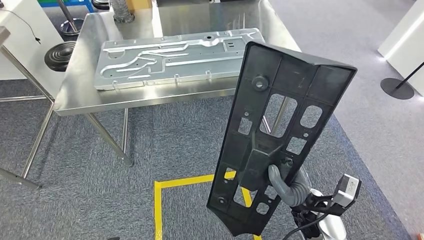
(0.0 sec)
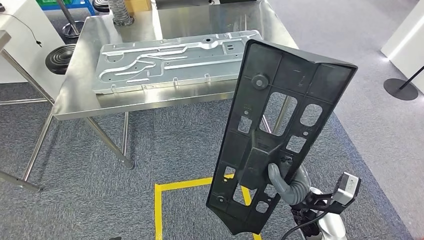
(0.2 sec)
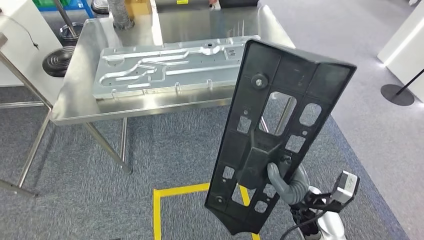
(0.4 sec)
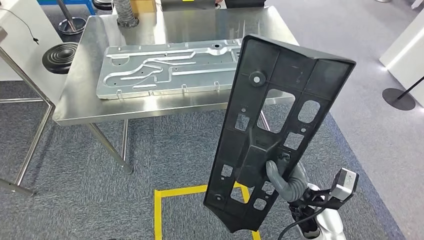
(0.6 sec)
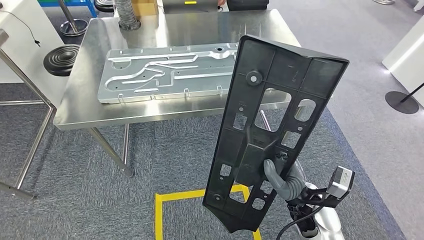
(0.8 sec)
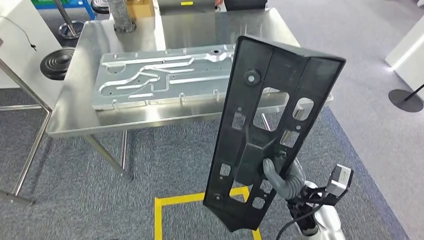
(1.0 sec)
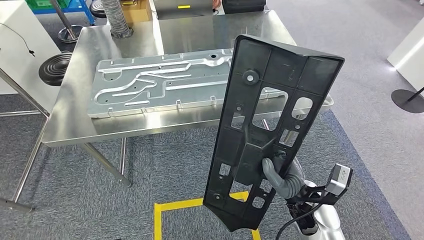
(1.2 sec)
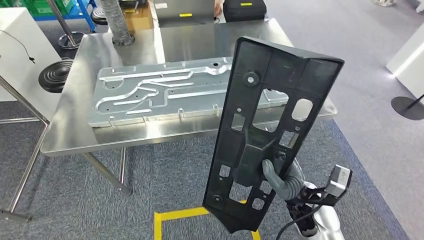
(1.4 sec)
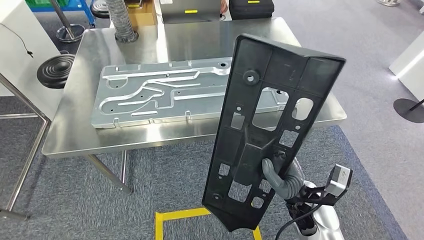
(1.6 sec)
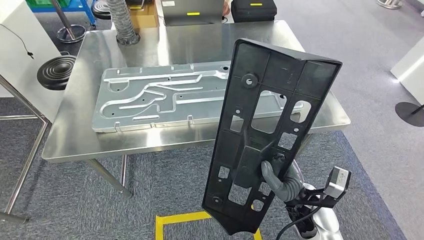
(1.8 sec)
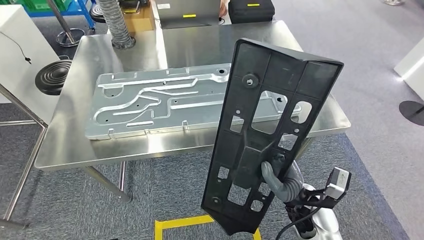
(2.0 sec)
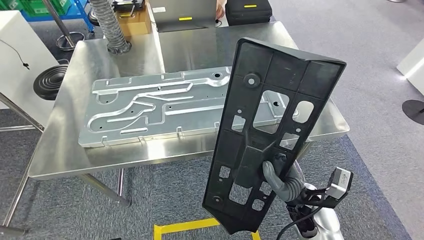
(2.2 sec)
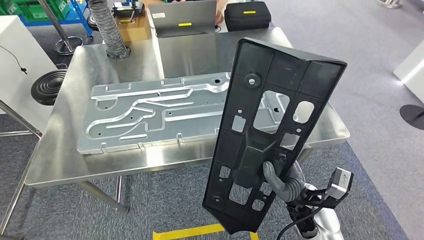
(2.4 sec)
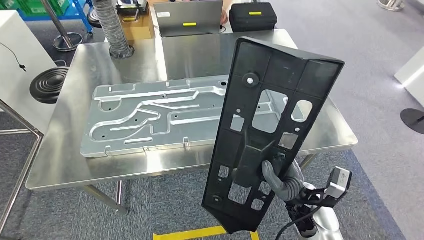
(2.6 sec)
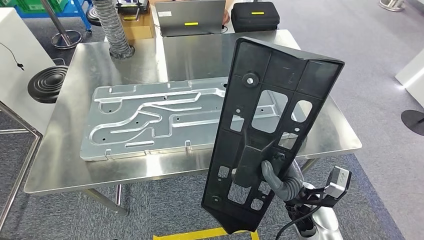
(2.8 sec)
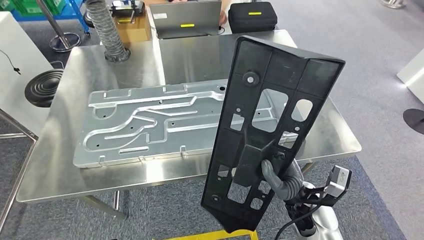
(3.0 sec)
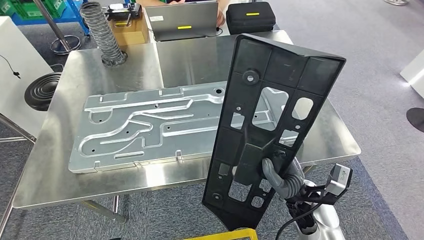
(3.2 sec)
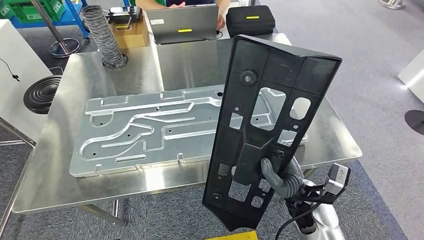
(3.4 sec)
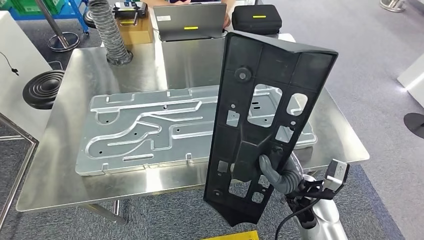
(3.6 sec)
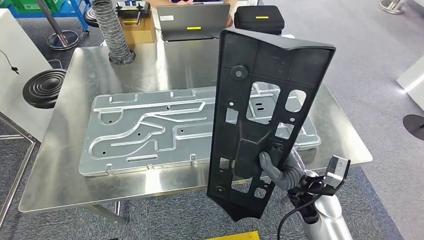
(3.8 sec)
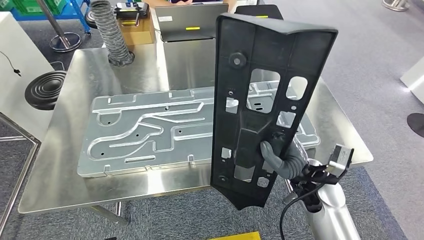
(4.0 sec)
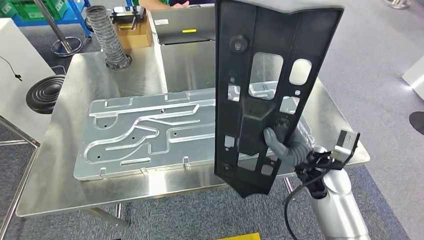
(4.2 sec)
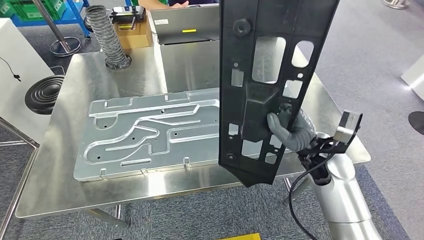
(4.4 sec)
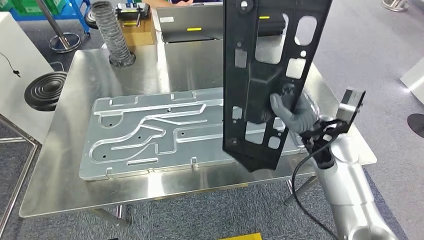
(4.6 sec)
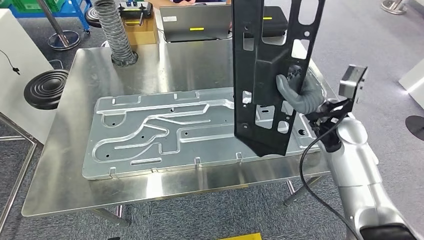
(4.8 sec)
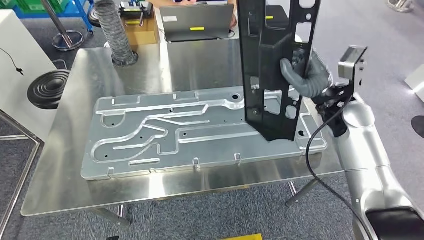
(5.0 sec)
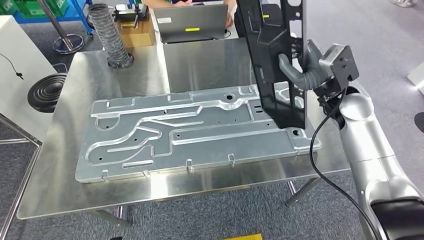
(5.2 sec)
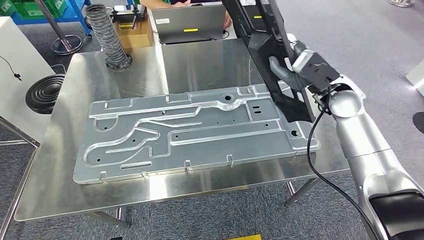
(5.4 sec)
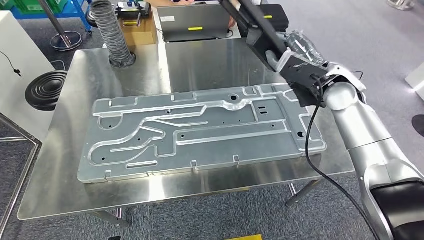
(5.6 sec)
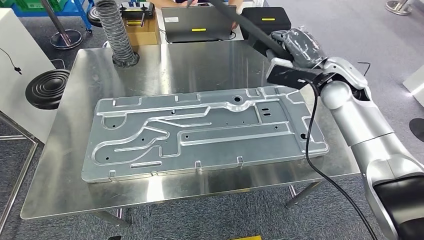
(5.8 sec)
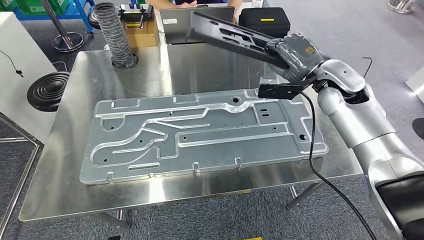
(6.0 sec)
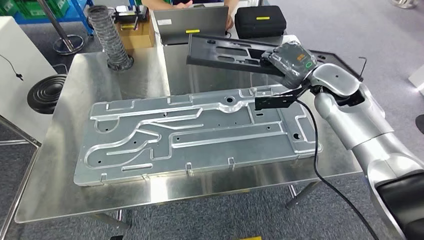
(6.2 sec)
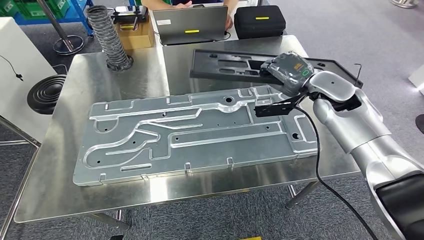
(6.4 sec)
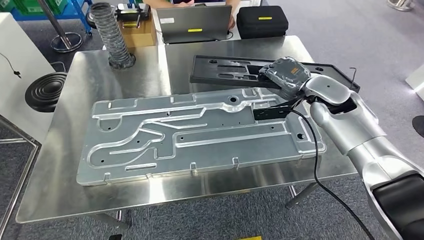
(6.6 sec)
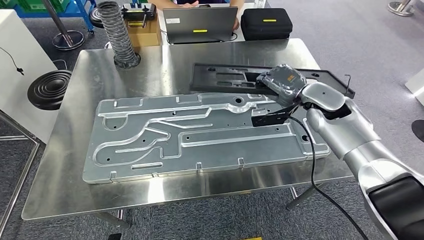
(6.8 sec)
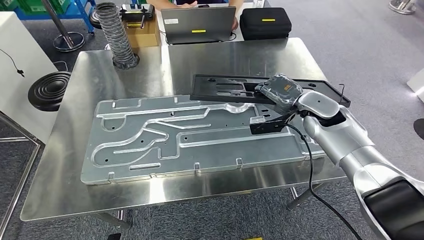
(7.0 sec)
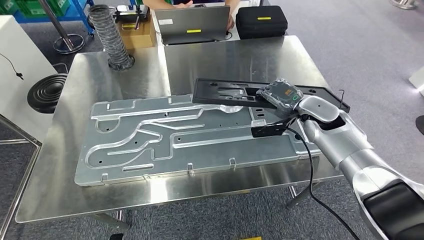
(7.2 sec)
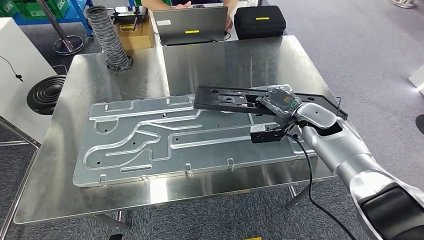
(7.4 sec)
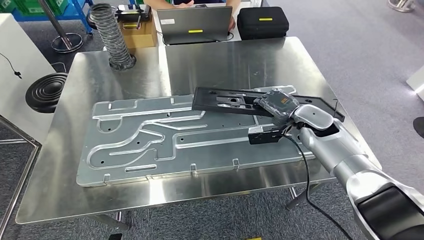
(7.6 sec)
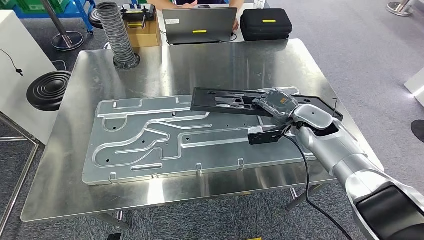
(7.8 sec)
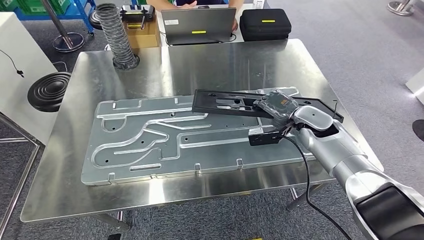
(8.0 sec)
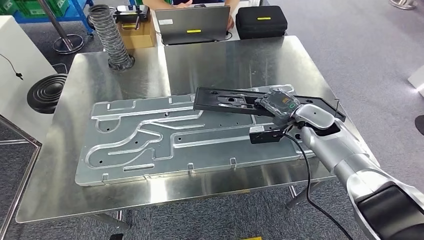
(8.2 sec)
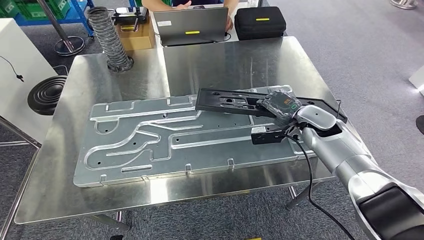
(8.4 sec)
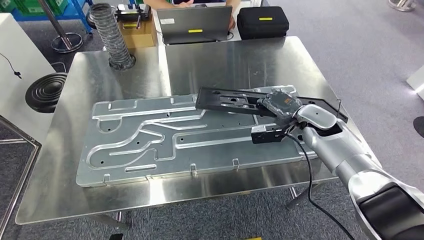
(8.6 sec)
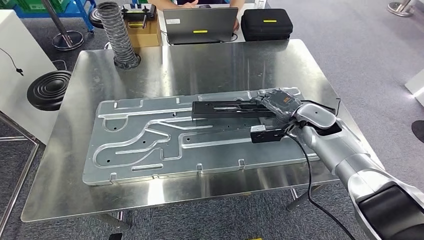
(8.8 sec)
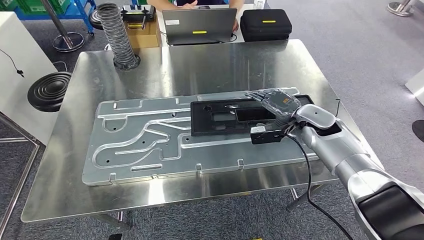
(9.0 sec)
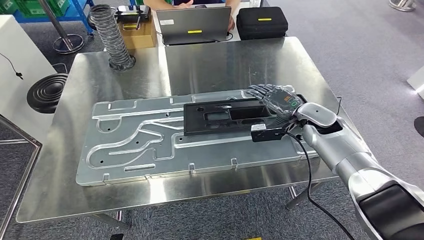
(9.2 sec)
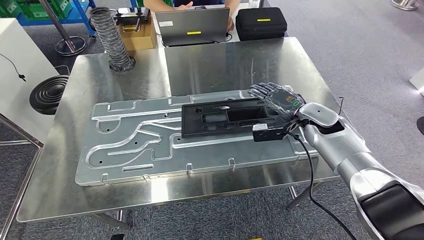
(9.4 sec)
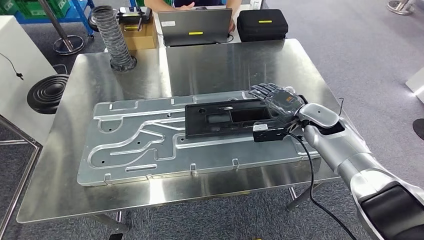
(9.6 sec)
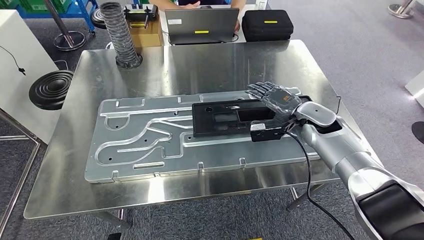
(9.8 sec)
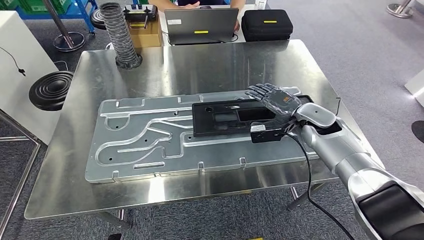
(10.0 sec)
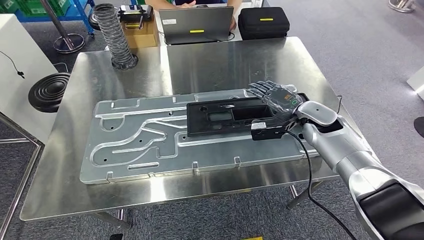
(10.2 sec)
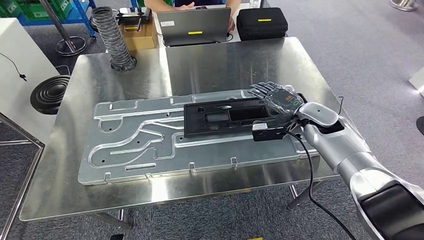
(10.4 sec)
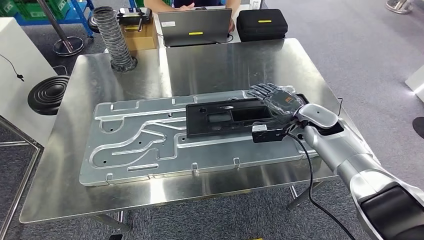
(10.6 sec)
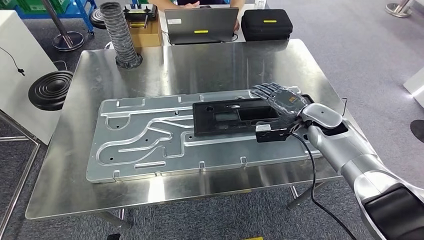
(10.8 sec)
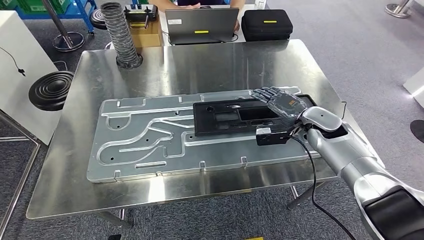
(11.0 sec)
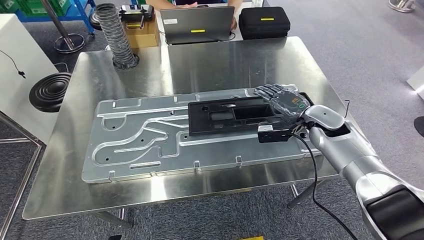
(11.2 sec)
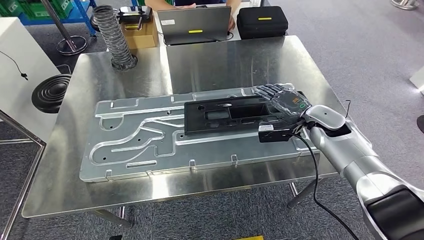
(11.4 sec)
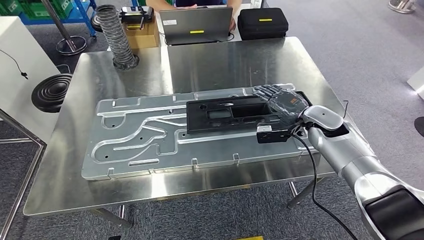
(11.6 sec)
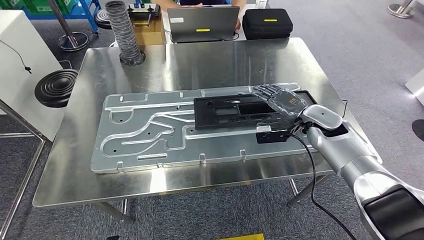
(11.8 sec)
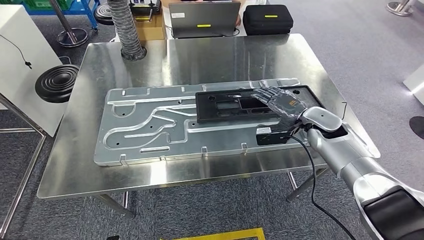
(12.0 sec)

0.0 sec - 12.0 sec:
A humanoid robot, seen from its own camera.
Step, 0.0 sec - 5.2 sec: Move the large material to the workbench.
Step, 5.4 sec - 10.6 sec: Insert the large material into the corresponding slot on the workbench.
7.6 sec - 9.0 sec: Neither hand changes place.

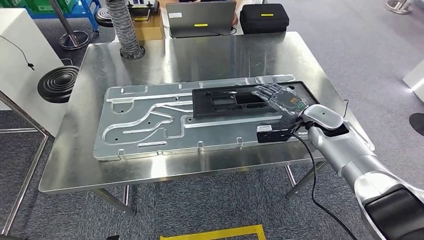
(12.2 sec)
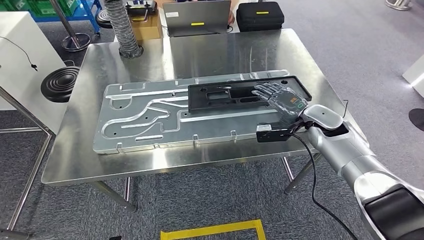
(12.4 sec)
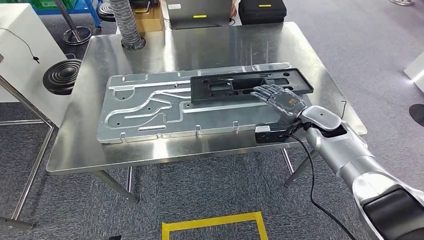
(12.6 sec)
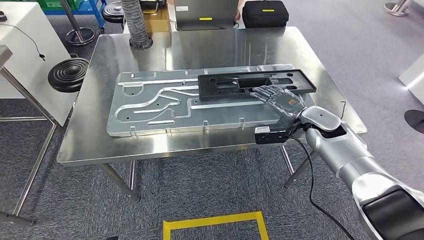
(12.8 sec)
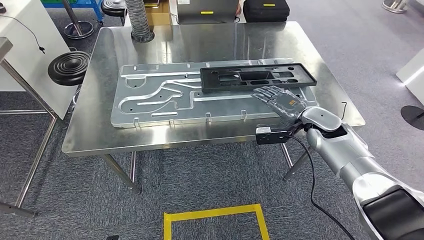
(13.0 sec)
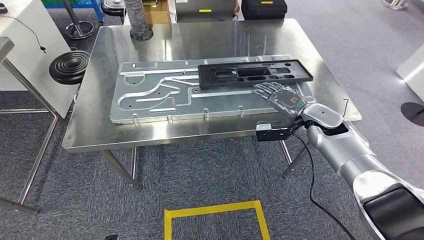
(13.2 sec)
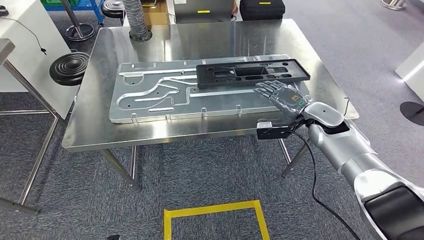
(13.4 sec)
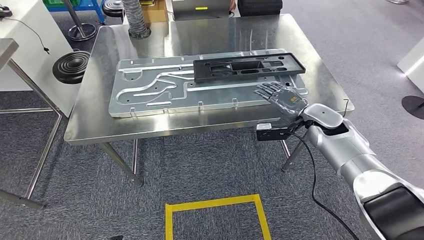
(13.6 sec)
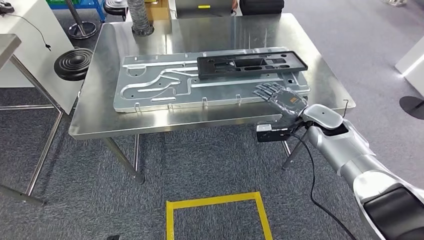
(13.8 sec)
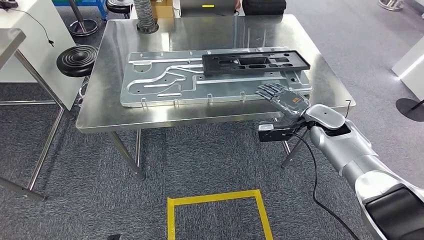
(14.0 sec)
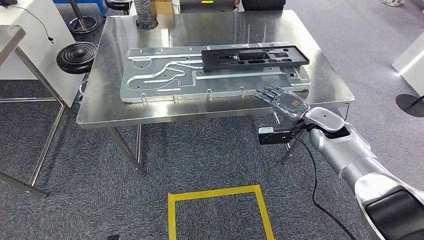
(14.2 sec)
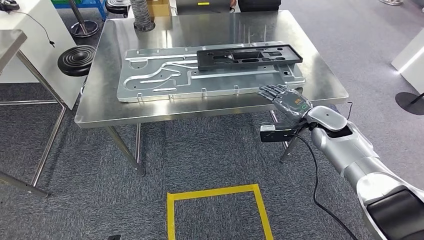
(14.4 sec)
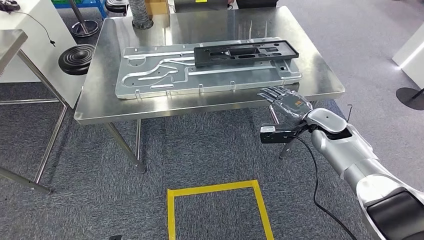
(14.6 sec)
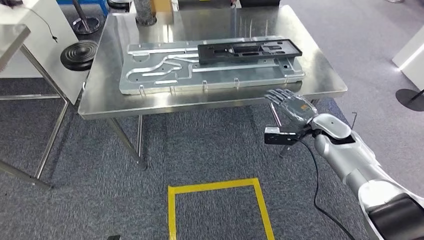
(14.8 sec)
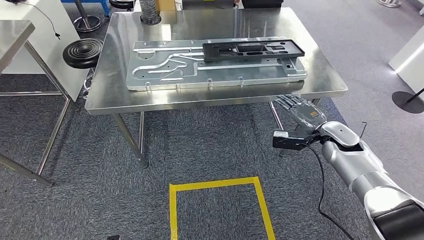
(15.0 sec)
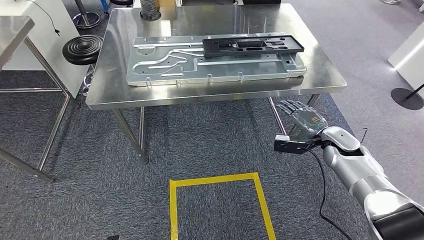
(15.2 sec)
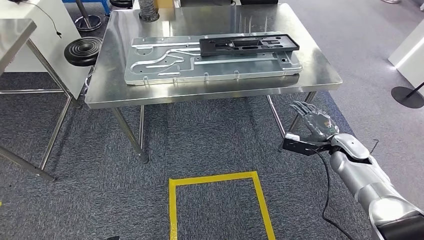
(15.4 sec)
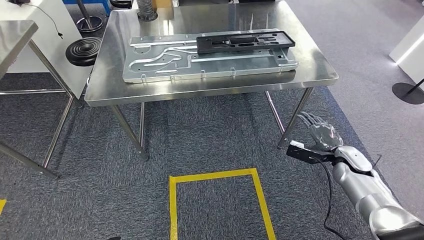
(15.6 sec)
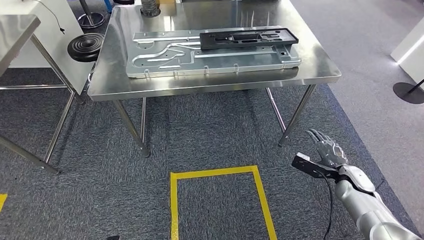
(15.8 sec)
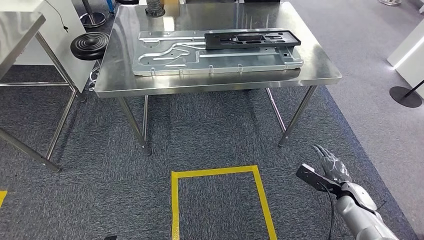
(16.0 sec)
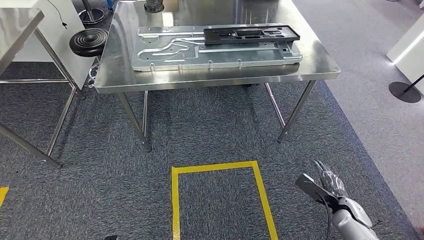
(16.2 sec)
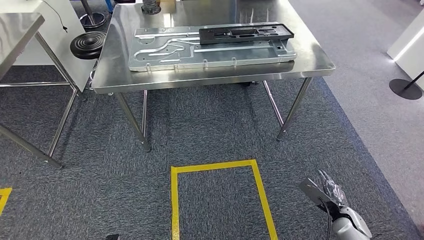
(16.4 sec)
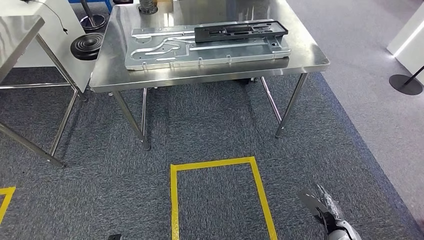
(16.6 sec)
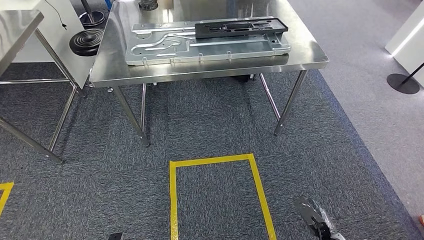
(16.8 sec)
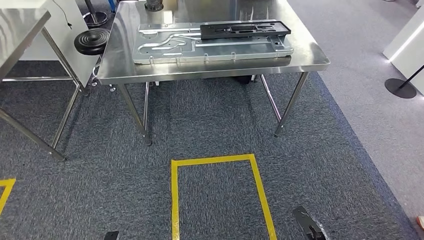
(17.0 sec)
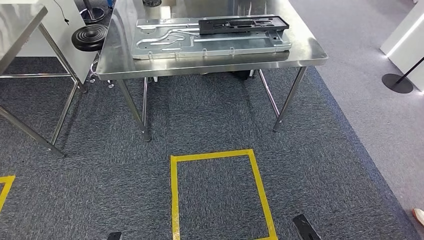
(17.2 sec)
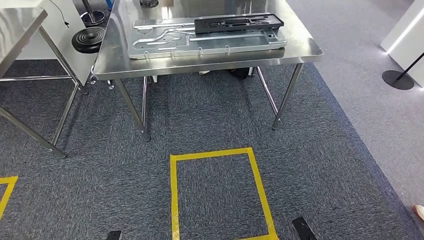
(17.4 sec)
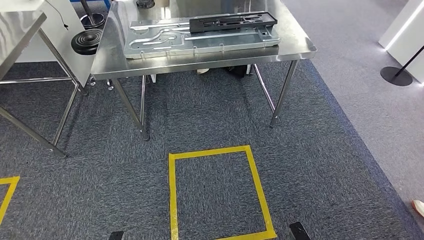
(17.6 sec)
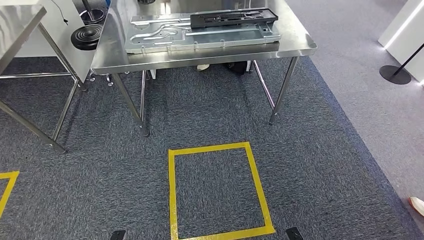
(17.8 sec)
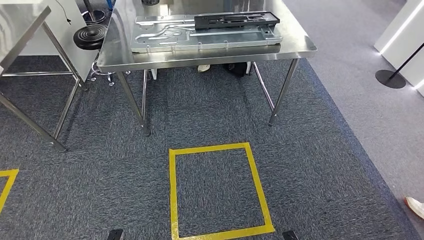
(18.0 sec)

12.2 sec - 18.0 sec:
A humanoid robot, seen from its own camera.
Step, 12.2 sec - 18.0 sec: Return to the initial position at the shelf.
